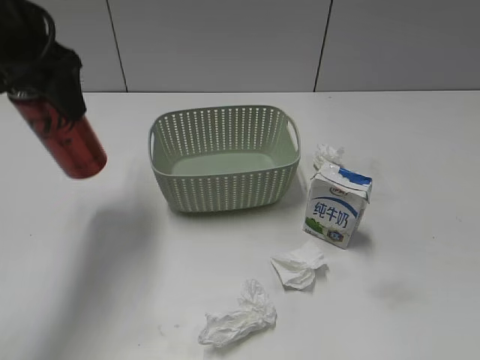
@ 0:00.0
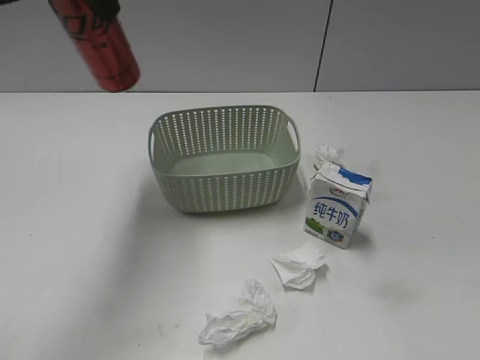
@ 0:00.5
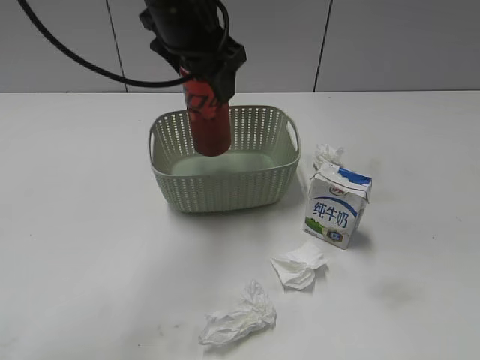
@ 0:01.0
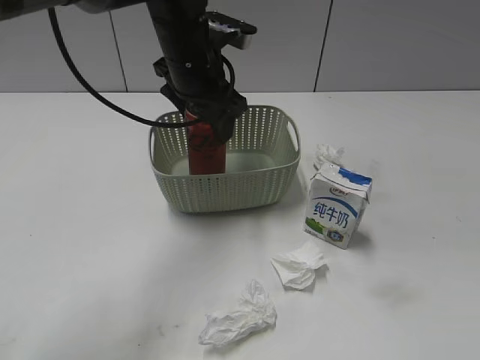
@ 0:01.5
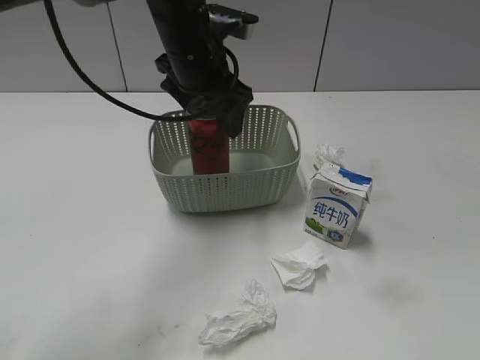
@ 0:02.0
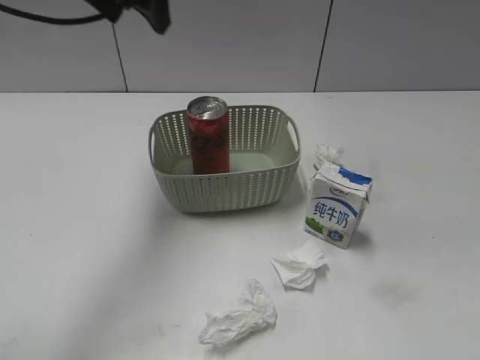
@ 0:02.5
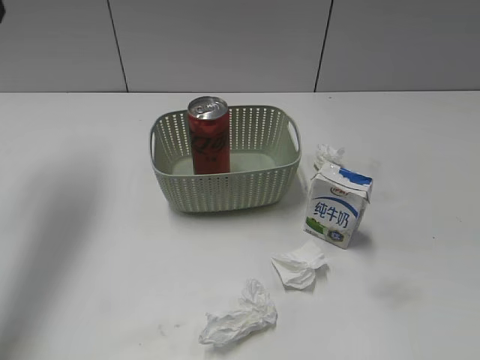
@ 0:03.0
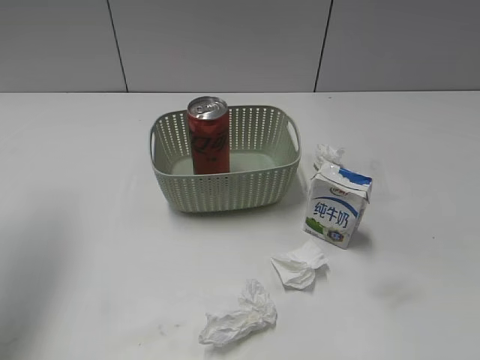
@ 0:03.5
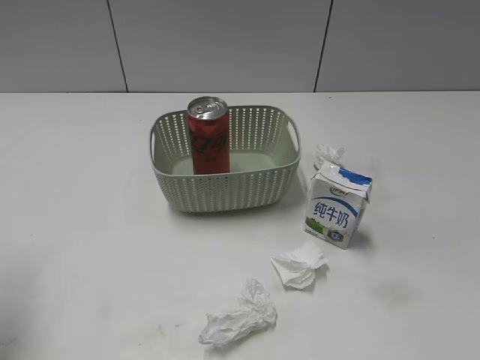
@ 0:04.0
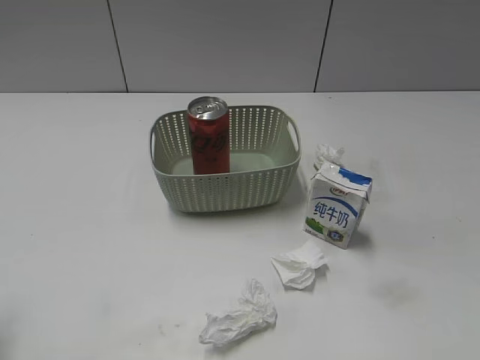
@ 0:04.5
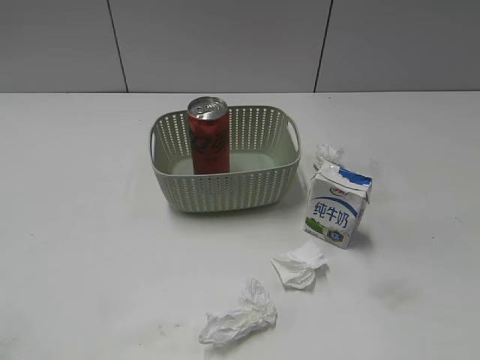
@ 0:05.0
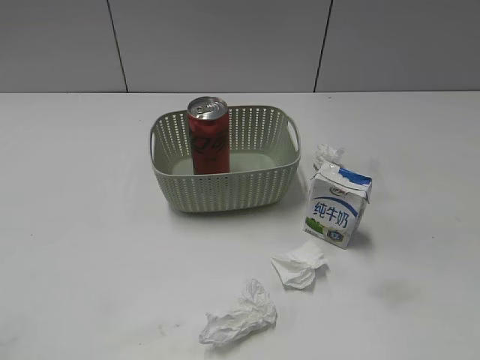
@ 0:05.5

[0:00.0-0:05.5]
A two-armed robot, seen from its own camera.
Step, 0:00.0 to 0:02.0: Place the cola can in the basket with left gripper.
0:00.0 to 0:02.0: The left gripper is displaced to the right, downward and forward by some 20 cm, and opens its fingers.
0:02.0 to 0:03.5: The left gripper shifts roughly 30 cm to the left, upward and backward, and closes.
0:03.5 to 0:05.5: The left gripper shifts some 25 cm backward.

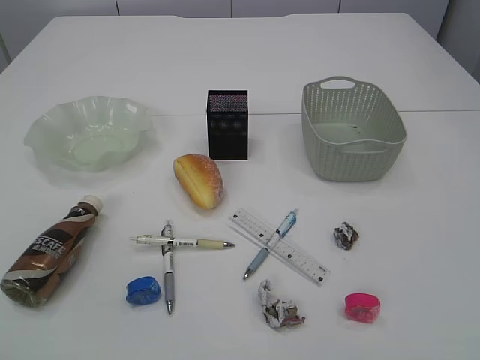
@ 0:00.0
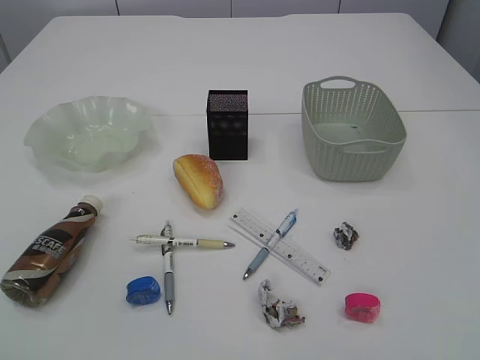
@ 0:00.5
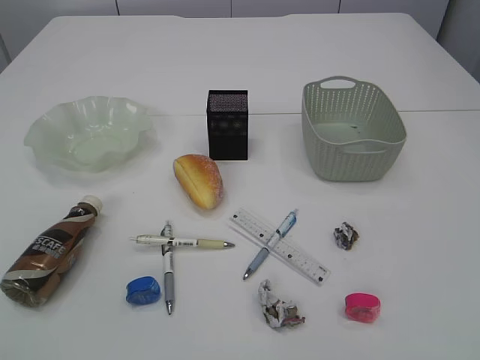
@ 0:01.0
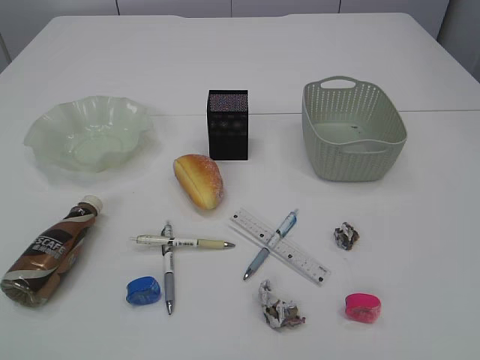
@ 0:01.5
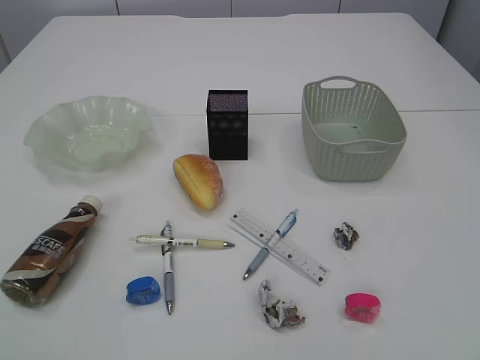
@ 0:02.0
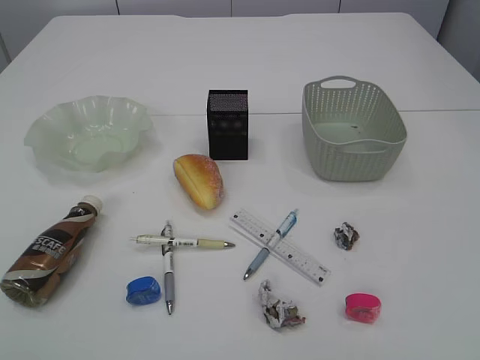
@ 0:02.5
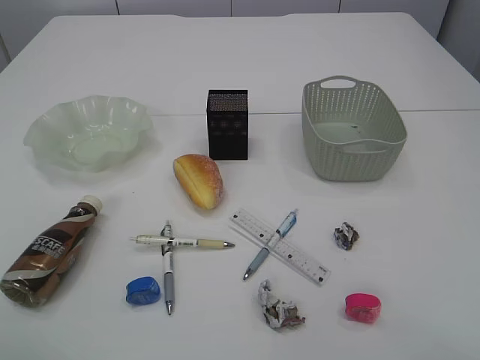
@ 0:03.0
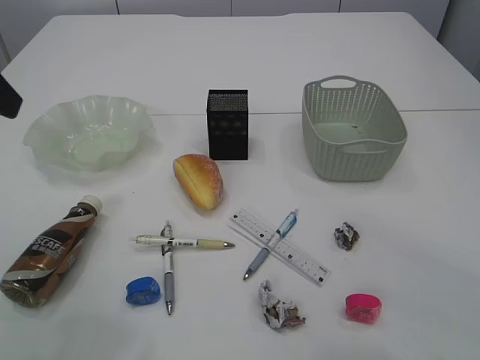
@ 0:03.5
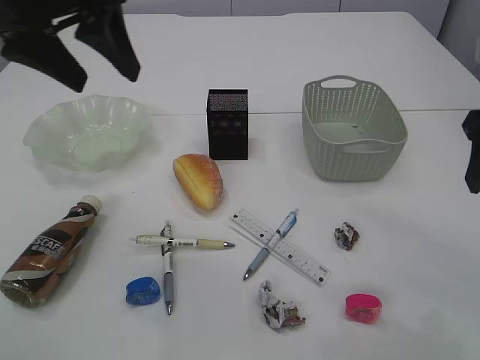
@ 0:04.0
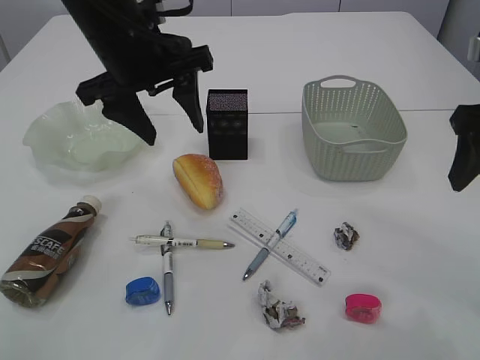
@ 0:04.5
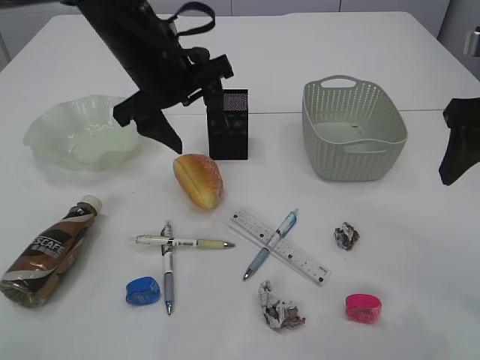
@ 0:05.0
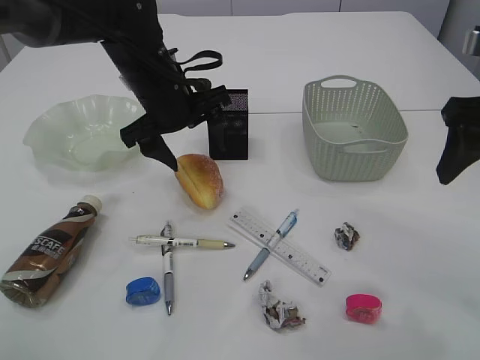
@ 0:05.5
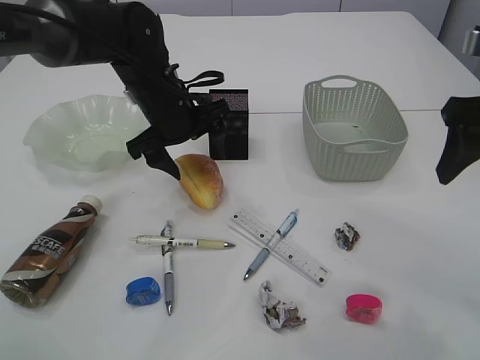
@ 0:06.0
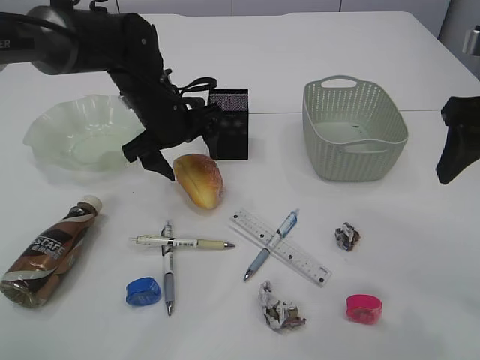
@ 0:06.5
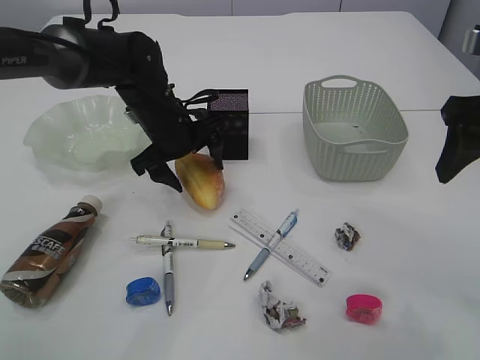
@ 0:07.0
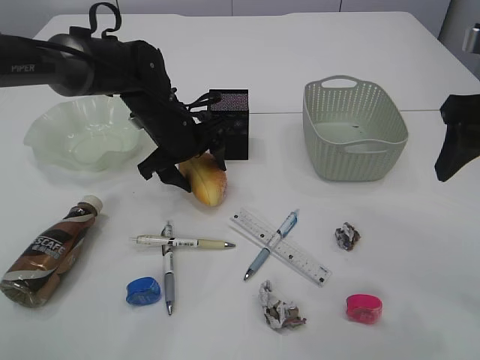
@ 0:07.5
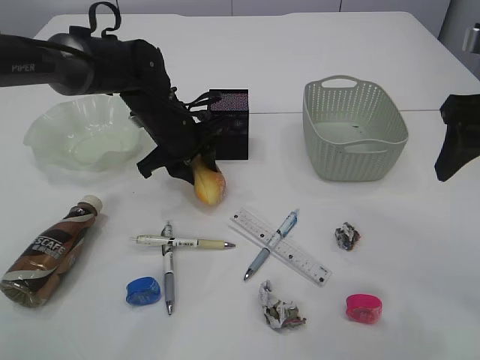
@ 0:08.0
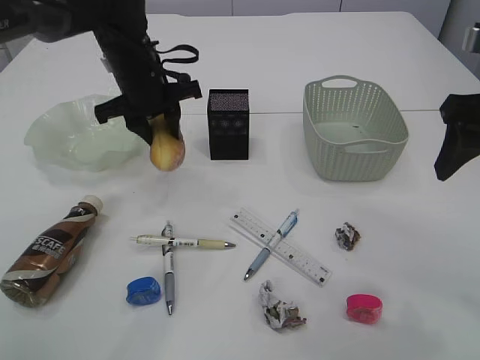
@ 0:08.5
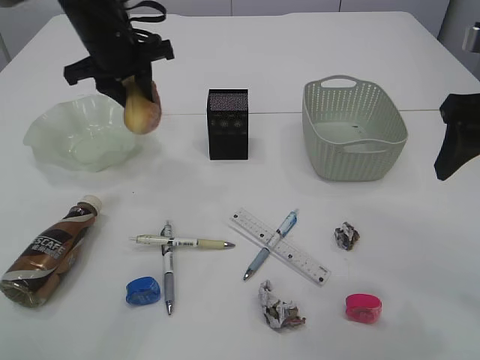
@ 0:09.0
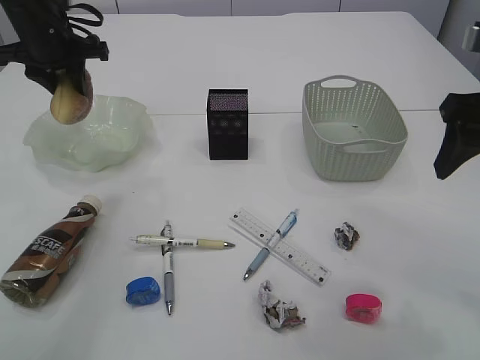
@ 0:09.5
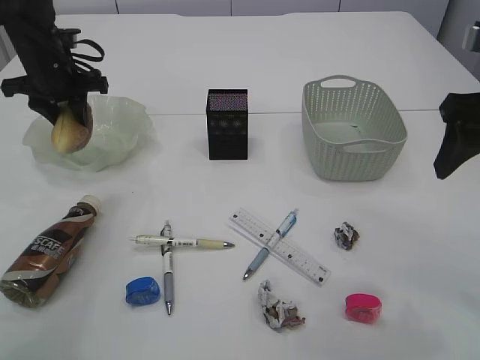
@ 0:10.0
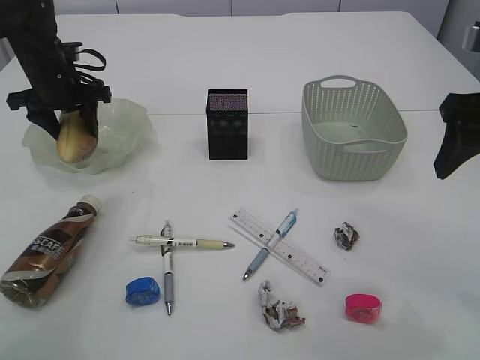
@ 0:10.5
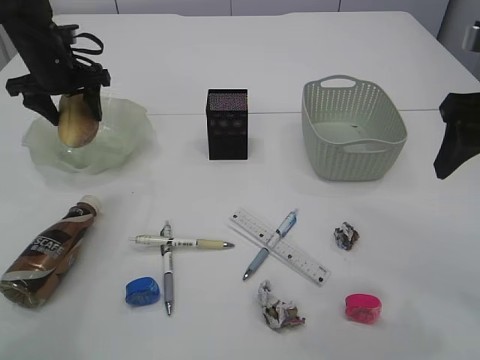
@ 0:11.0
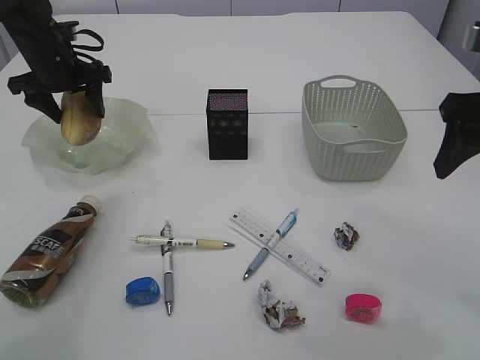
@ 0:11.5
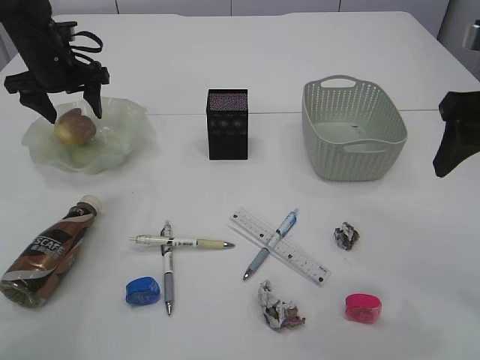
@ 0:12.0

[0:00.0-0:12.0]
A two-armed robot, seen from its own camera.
0:02.0 to 0:04.0: The right gripper goes approximately 30 cm forward, while the left gripper goes roughly 30 cm forward and to the right.
0:04.0 to 0:06.0: The left gripper shifts roughly 20 cm downward and forward.
0:06.0 to 0:08.0: The left gripper moves about 5 cm, and closes its fingers.
0:08.0 to 0:10.0: The left gripper travels to the left and upward by approximately 20 cm.
0:10.0 to 0:12.0: The left gripper opens its fingers.

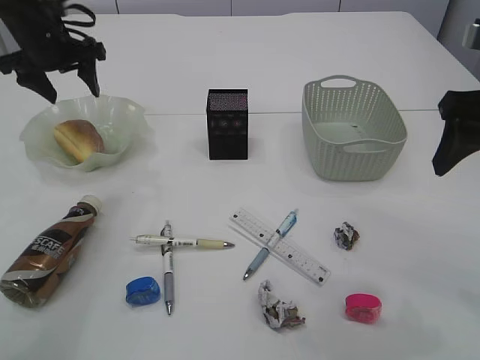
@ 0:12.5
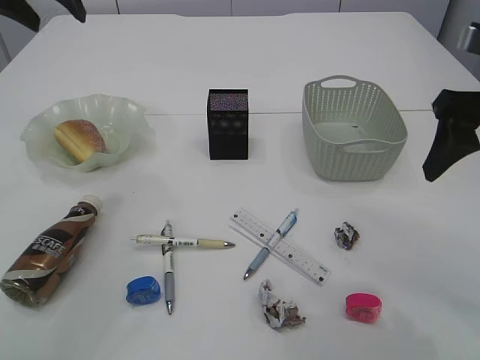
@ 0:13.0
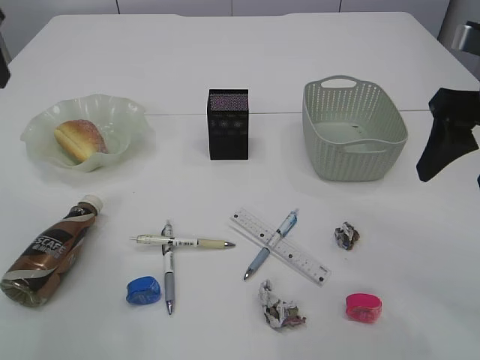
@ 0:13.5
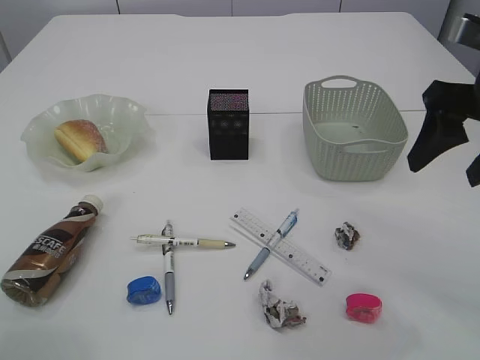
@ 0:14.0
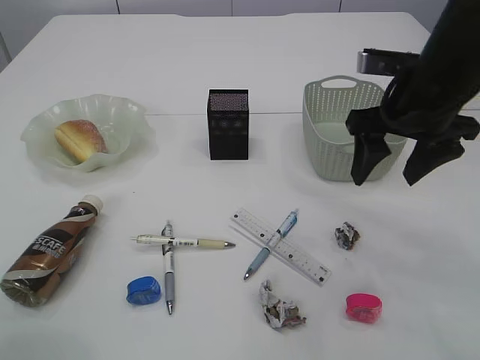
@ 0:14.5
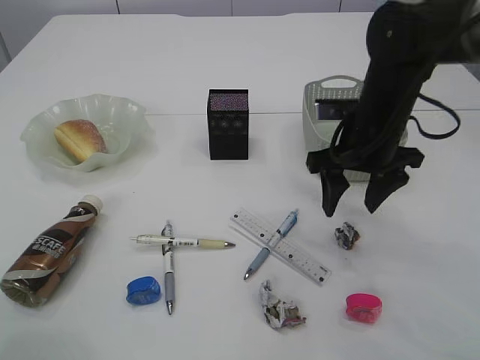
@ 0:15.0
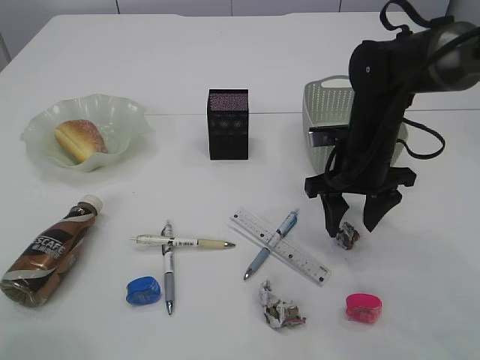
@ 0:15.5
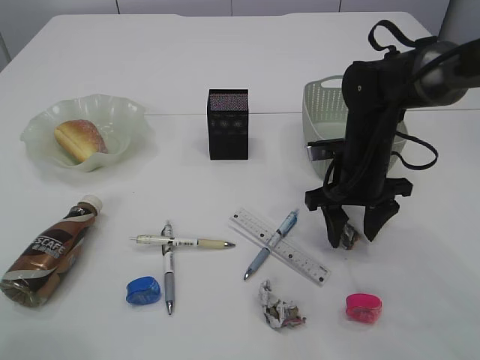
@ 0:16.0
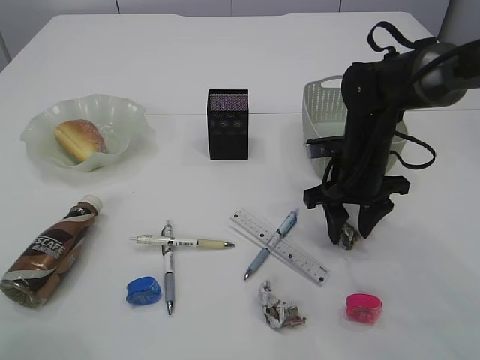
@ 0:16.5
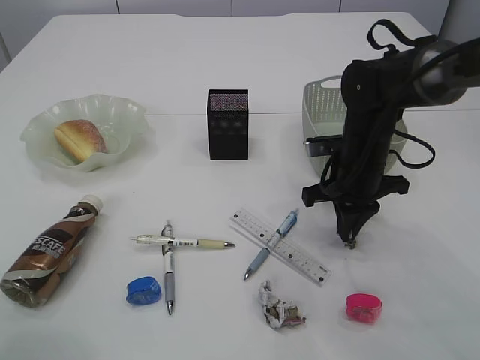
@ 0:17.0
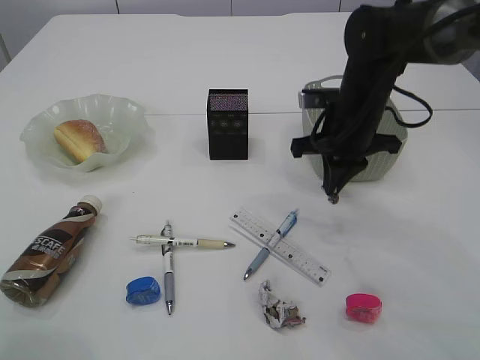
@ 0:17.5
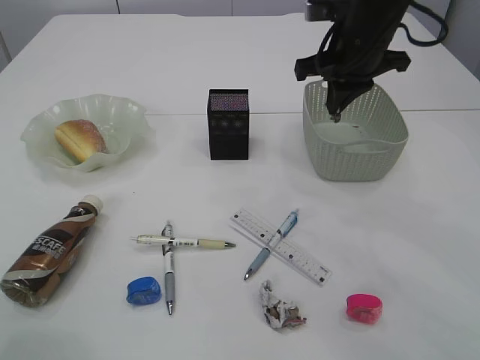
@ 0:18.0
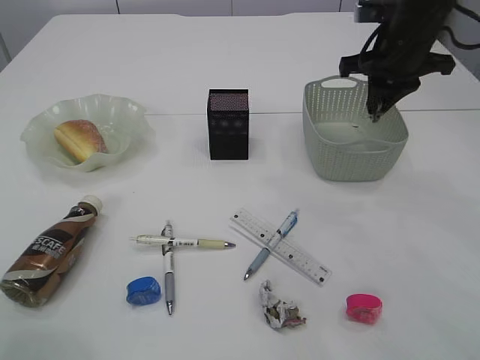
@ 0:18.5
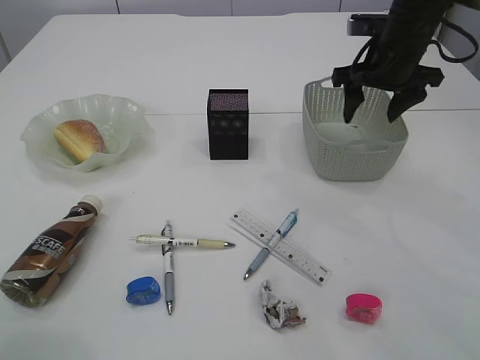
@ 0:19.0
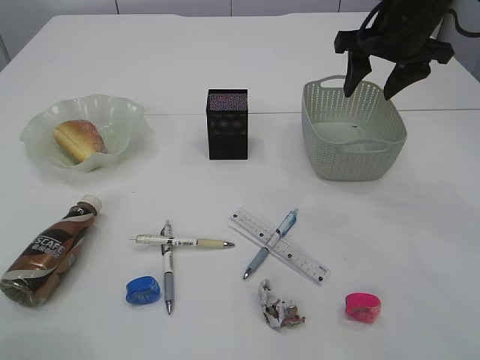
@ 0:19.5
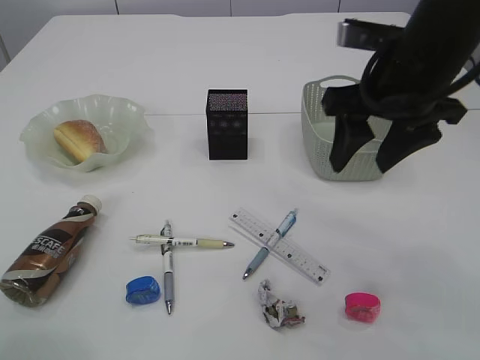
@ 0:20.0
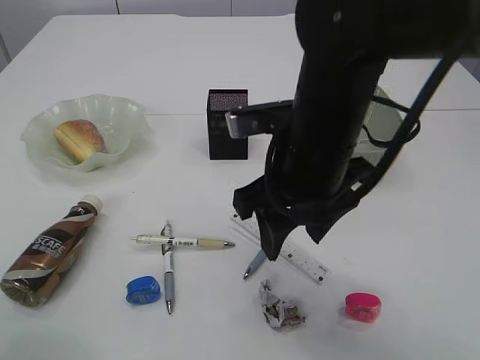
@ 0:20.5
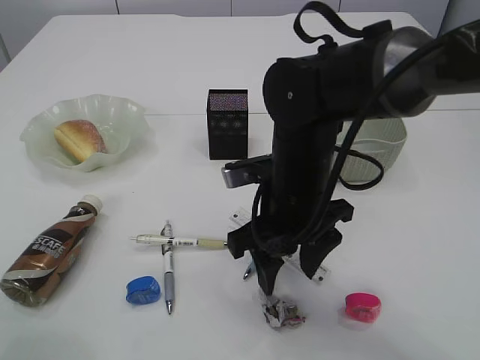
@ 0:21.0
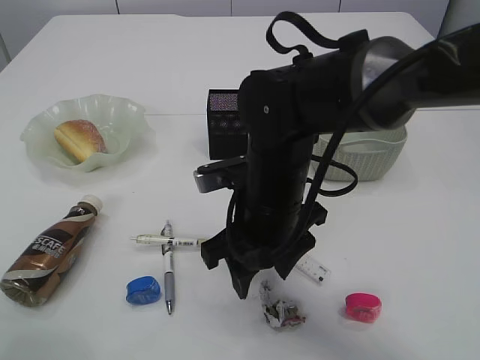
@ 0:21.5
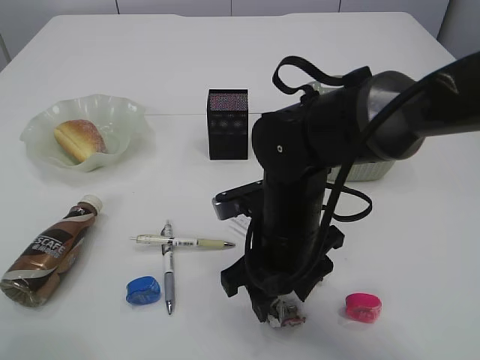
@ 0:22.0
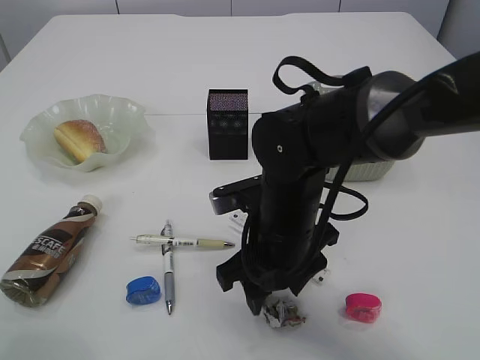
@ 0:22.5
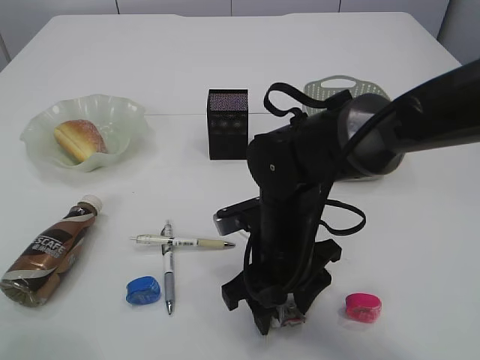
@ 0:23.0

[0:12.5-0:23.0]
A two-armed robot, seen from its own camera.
Step, 0:13.0 to 0:17.0: Pick up the waste paper.
Step, 0:17.5 to 0:19.0: Place the waste paper in the basket.
0:12.5 to 0:14.5: The left gripper goes about 30 cm backward and upward, while the right gripper shifts roughly 10 cm to the left and forward.
0:14.5 to 0:16.5: The right gripper travels downward by roughly 15 cm.
0:16.5 to 0:19.0: The right gripper heads upward, forward and to the right, covering some 15 cm, and closes, then opens again.
0:19.0 to 0:21.0: The right gripper goes about 25 cm backward, to the left and downward.
0:21.0 to 0:23.0: The right gripper shifts approximately 5 cm downward.
